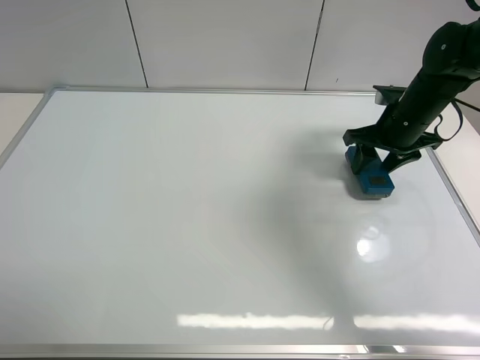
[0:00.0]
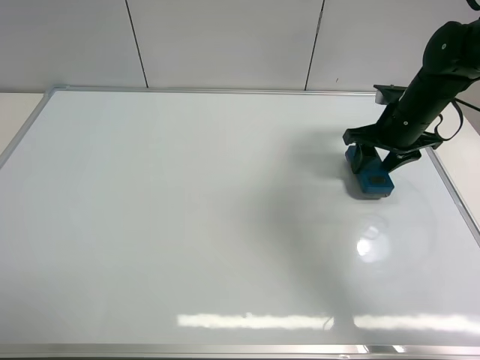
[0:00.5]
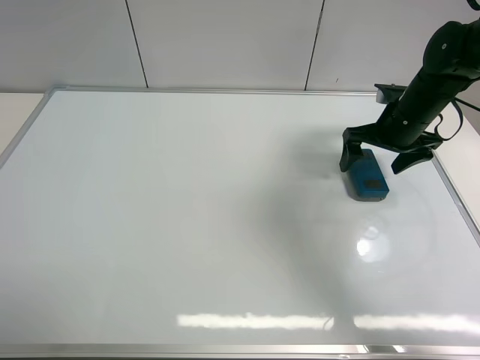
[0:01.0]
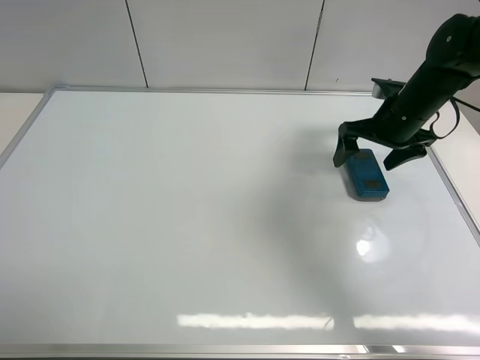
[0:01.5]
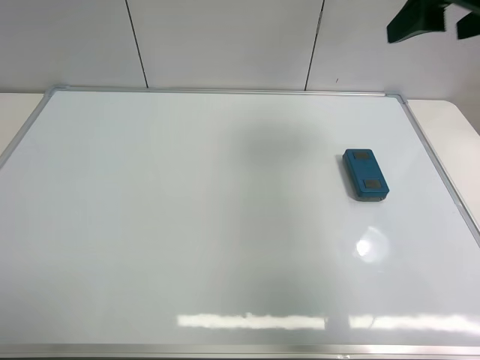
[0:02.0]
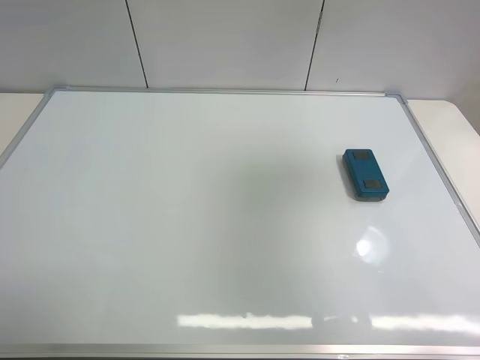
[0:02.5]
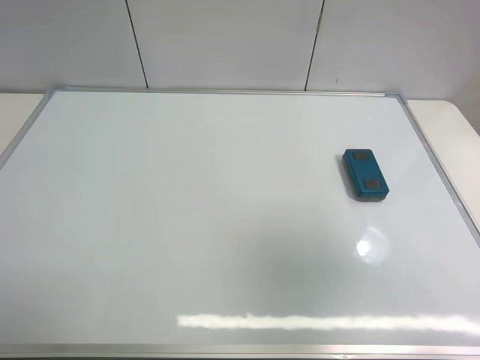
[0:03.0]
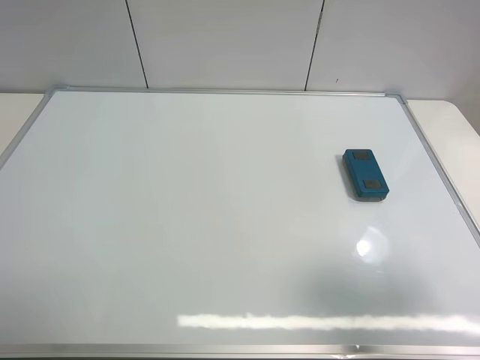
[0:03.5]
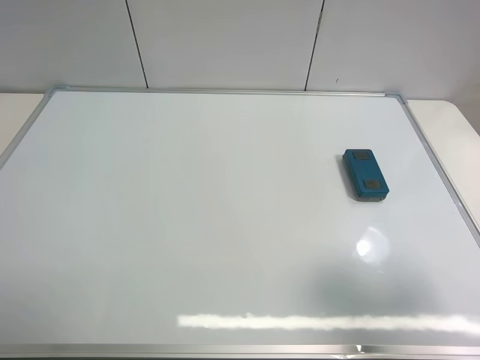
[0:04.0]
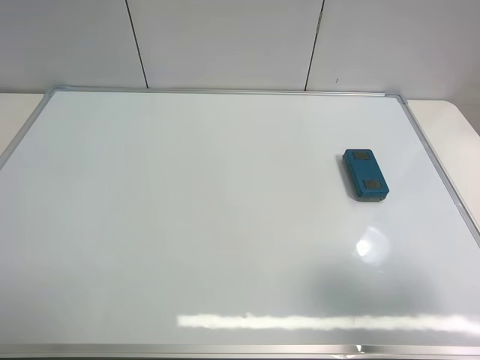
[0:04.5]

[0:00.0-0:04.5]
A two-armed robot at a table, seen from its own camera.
Task of the whole recording: use the right gripper to pick up the board eraser, wipe the notes on the whiteboard clean, and then put them back in place.
0:00.0 to 0:02.0: The right gripper heads upward and backward, covering roughly 25 cm, and opens.
0:02.0 to 0:04.5: The right gripper is displaced backward by approximately 25 cm.
